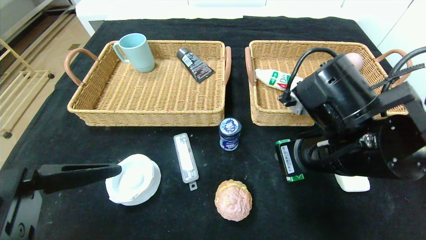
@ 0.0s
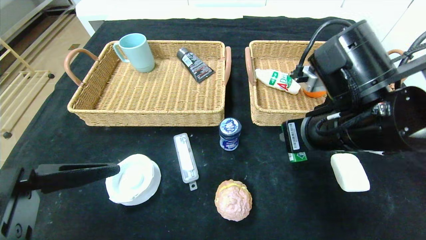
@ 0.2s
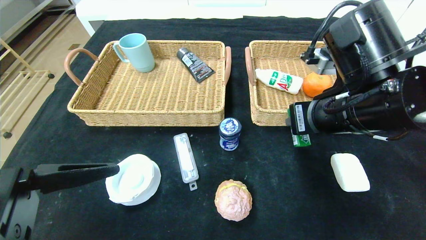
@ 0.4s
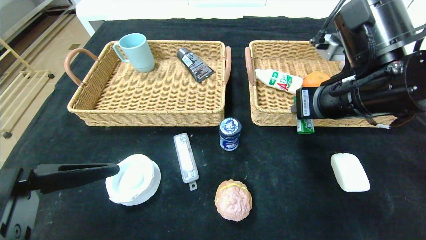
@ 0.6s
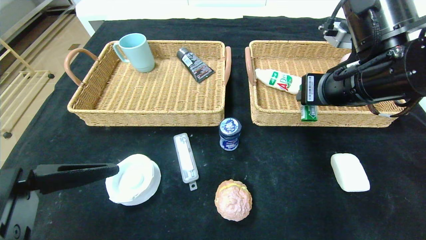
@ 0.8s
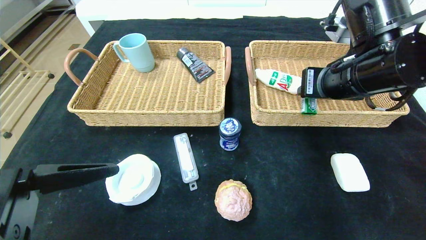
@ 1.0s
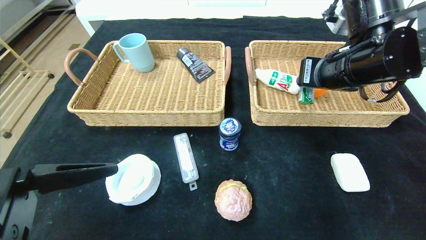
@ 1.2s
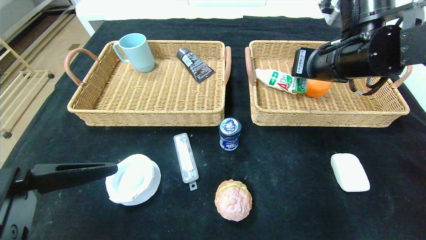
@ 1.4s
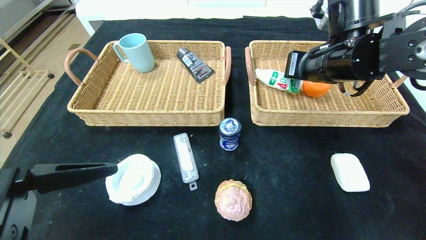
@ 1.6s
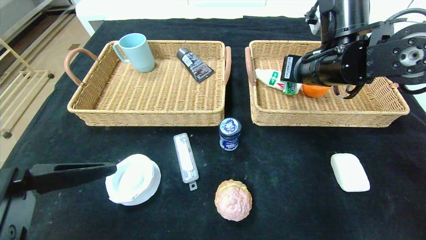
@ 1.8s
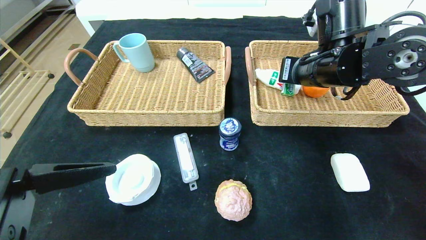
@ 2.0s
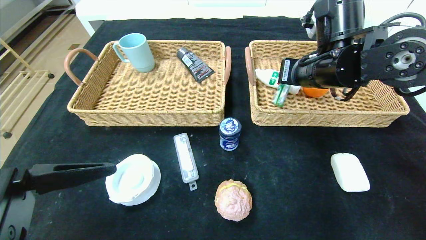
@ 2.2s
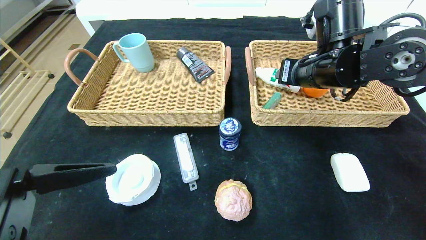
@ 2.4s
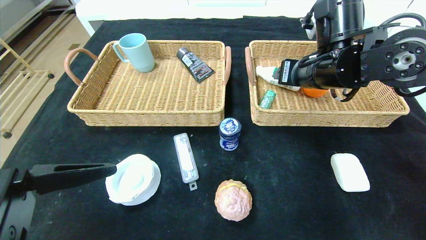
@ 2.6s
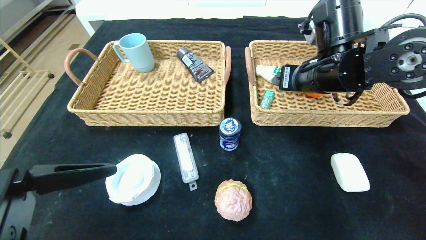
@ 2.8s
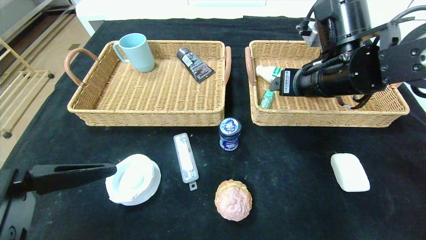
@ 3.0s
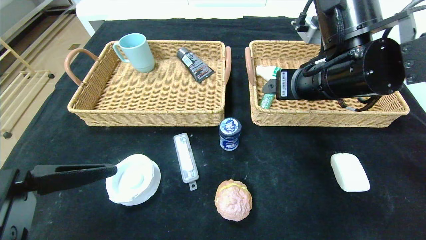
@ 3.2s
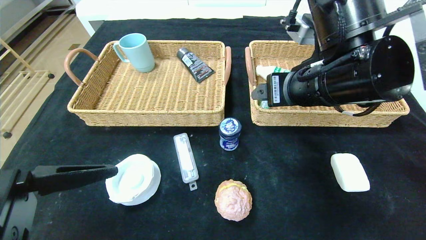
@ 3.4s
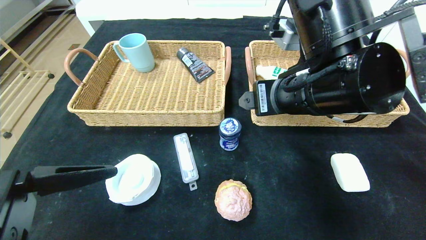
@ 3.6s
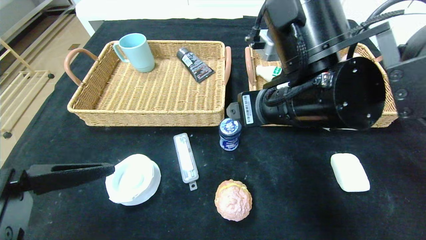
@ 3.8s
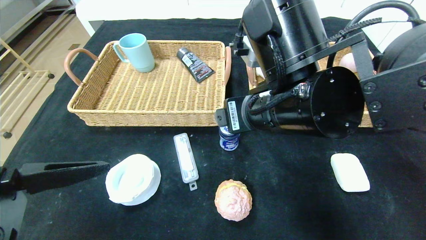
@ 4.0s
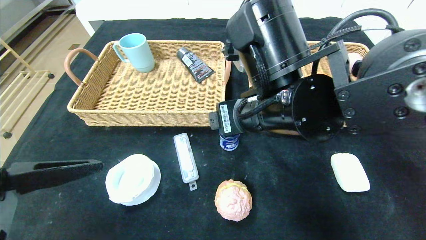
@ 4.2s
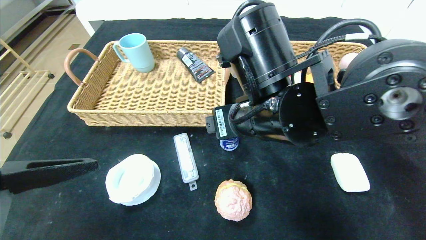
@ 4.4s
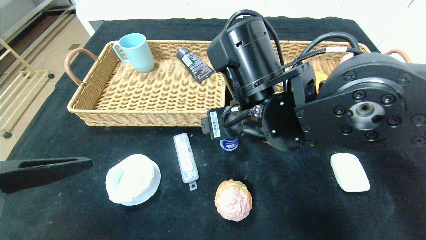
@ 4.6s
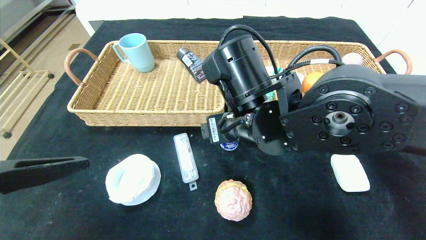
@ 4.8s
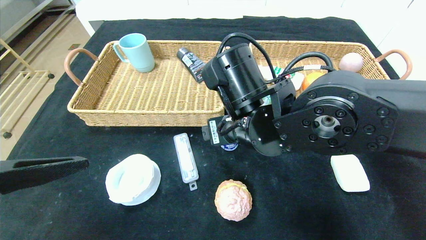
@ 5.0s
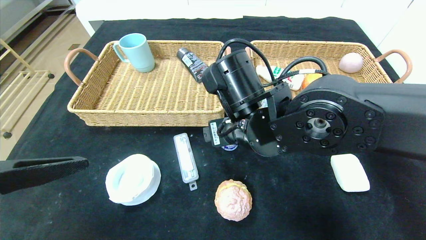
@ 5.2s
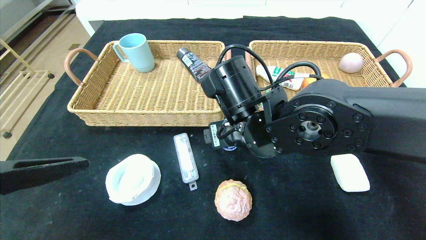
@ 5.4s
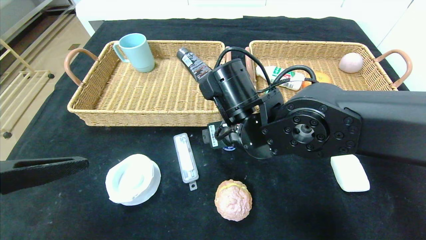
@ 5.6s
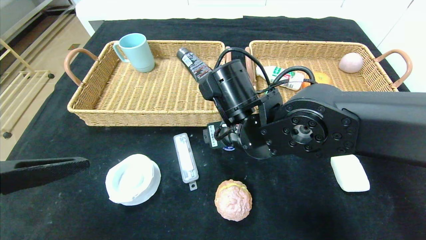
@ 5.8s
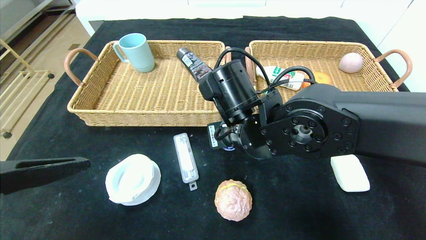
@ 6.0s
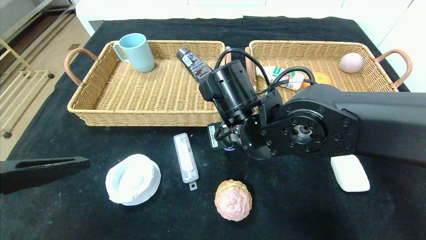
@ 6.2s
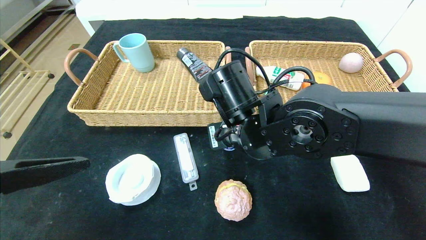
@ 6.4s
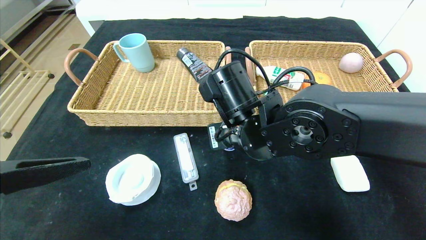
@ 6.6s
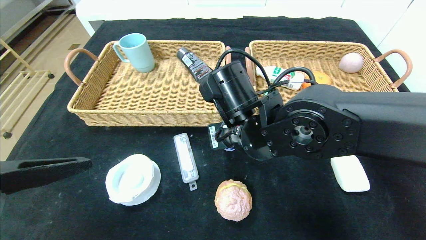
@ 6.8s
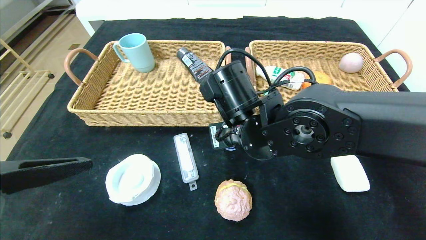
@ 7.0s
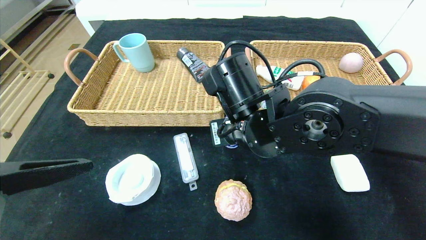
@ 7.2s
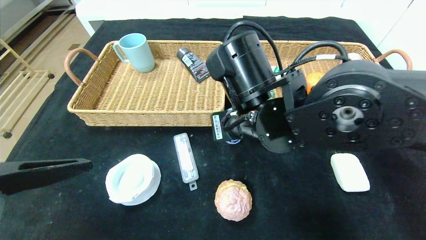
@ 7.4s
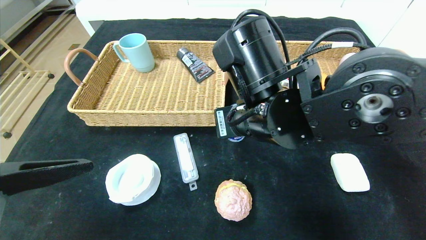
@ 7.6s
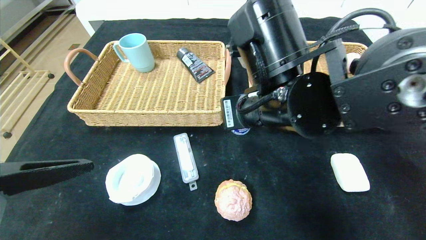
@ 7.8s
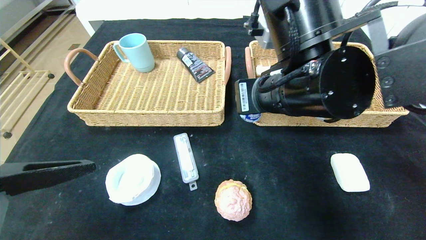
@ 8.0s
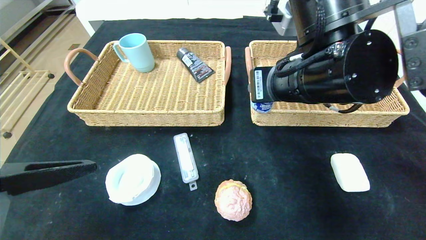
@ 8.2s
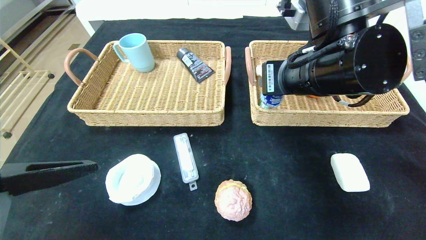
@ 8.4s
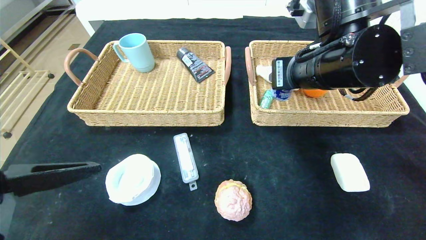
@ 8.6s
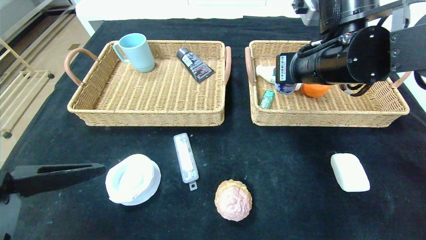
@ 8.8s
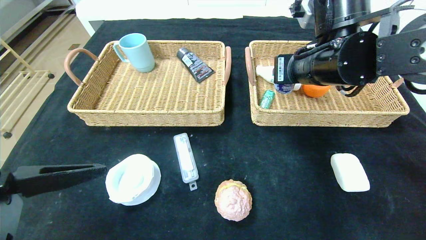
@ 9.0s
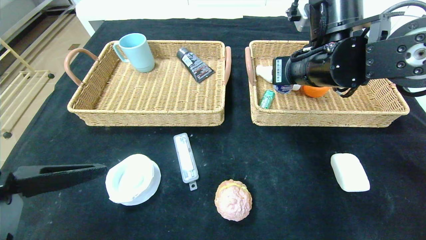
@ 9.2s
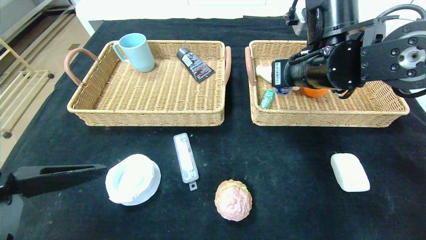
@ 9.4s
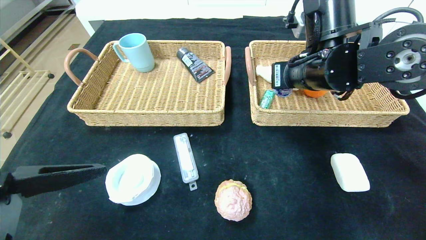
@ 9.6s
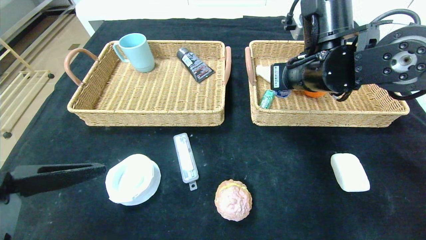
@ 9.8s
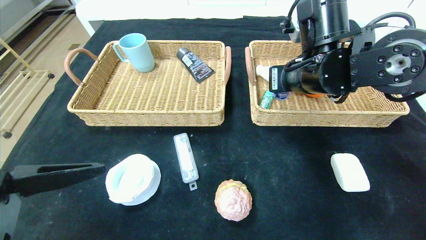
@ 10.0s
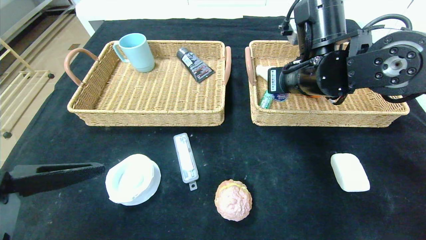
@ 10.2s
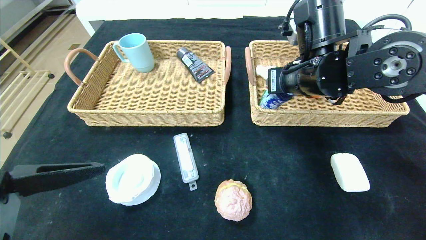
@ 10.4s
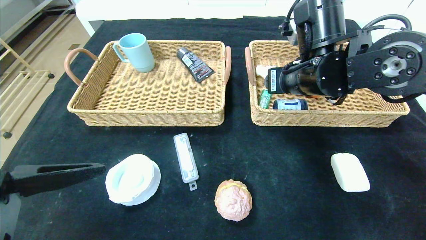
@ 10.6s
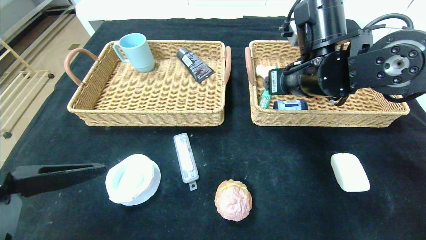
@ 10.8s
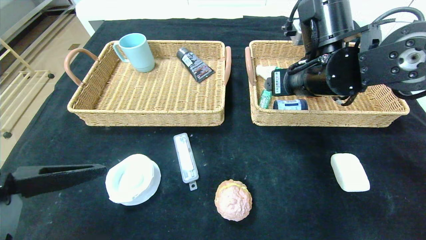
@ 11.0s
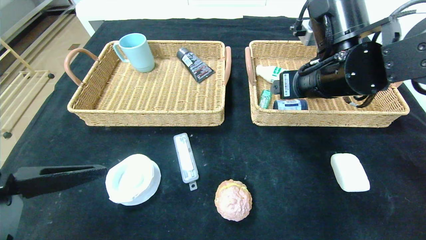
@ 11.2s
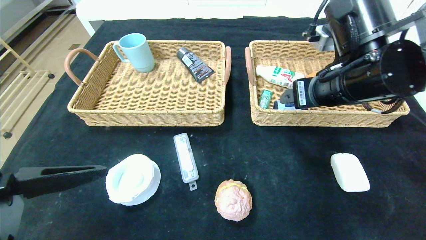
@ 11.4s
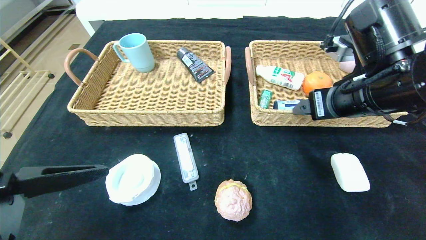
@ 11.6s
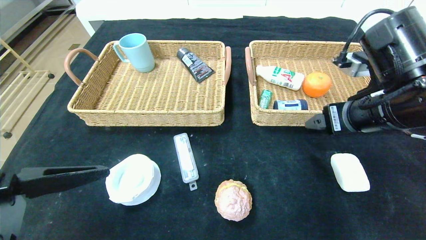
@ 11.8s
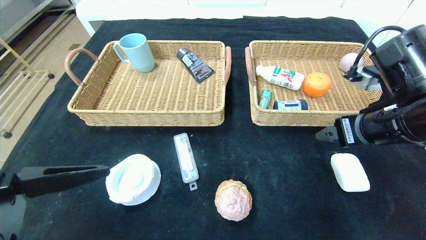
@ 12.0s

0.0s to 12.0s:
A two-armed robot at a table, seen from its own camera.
Step, 0.0s to 2.4s: Grasp the green chewing gum and put it in the right basket.
Step, 2.6s to 10.6s: Grasp the round chewing gum and put it in the right basket.
0.0s to 1.6s: The right gripper travels forward and upward by about 15 cm.
1.6s to 3.0s: The right gripper opens its fingers.
3.0s to 4.4s: The right gripper is displaced to the left and backward by approximately 15 cm.
4.4s to 6.0s: The right gripper moves about 5 cm, and closes.
6.0s to 7.6s: The right gripper shifts by approximately 5 cm.
7.6s to 9.0s: The right gripper is displaced to the right and forward by roughly 10 cm.
9.0s to 10.4s: The grippers make only small movements.
10.4s to 12.0s: The right gripper heads to the right and backward, covering approximately 15 cm, and opens up.

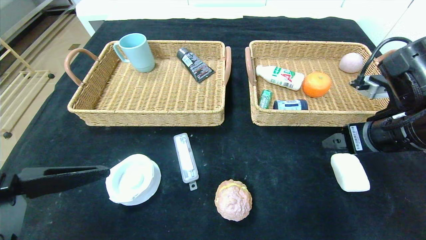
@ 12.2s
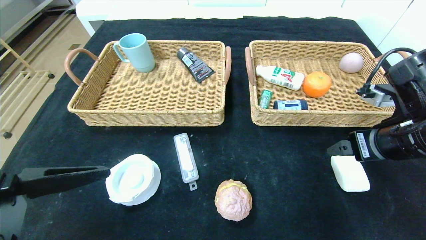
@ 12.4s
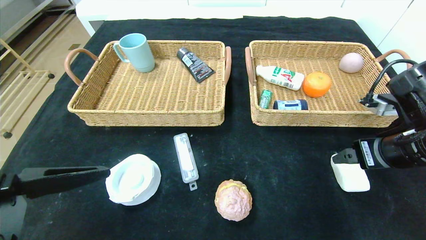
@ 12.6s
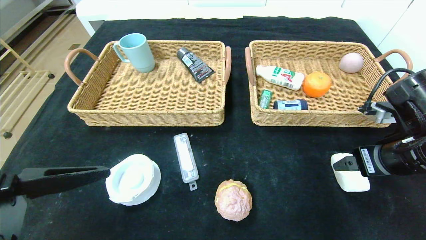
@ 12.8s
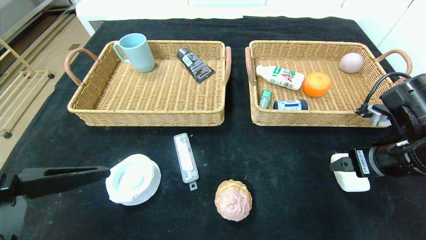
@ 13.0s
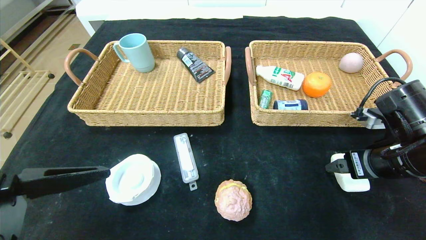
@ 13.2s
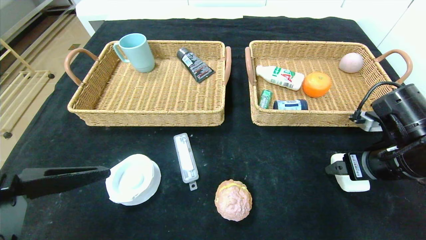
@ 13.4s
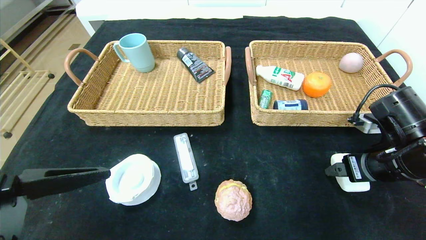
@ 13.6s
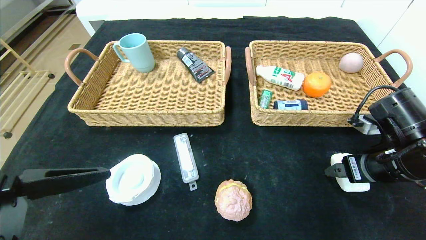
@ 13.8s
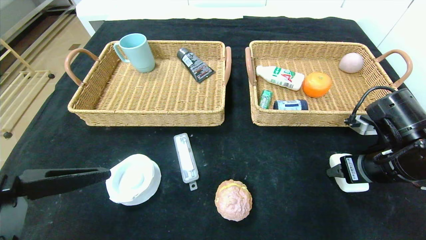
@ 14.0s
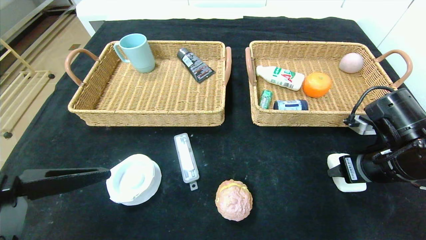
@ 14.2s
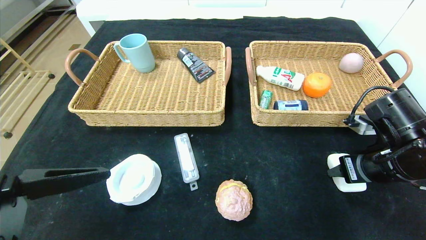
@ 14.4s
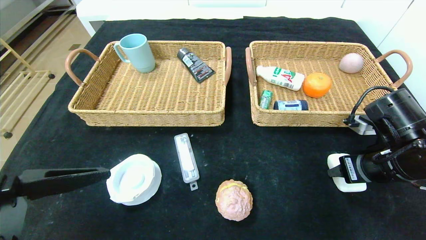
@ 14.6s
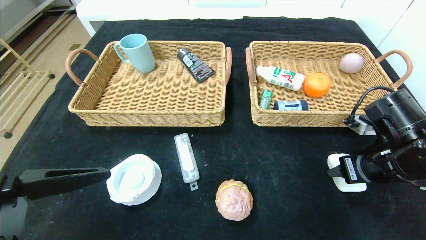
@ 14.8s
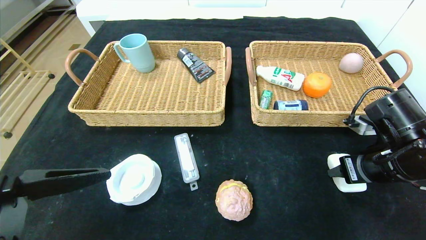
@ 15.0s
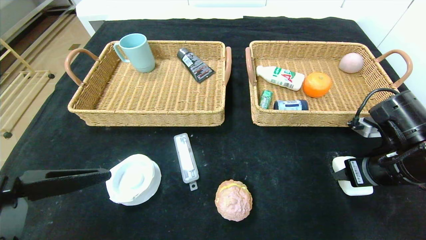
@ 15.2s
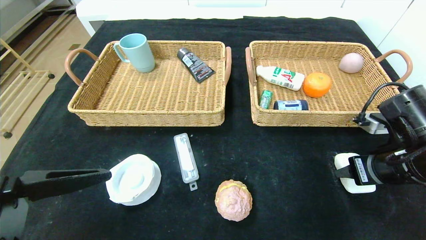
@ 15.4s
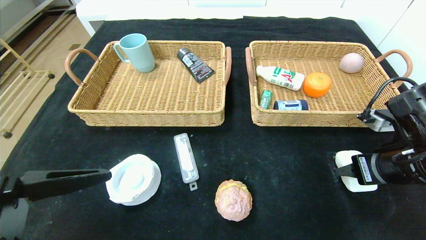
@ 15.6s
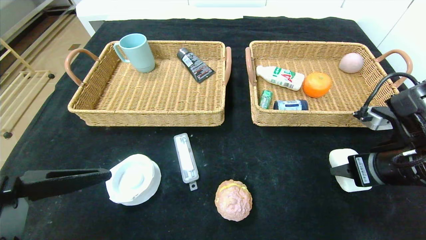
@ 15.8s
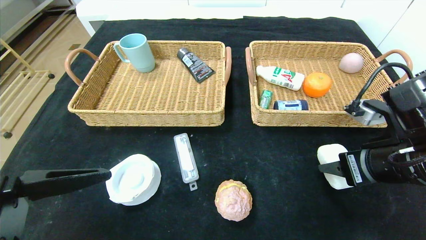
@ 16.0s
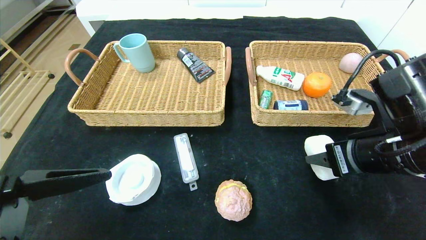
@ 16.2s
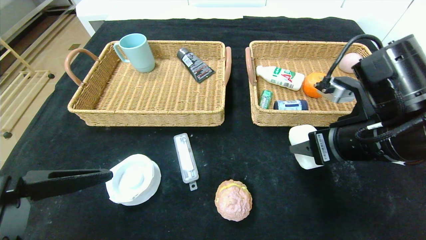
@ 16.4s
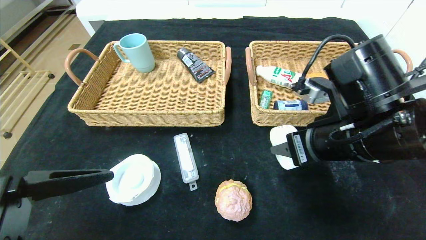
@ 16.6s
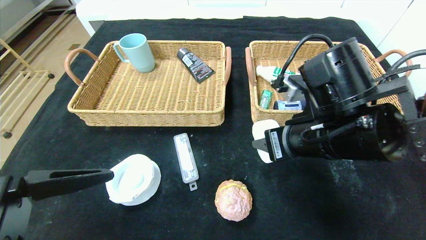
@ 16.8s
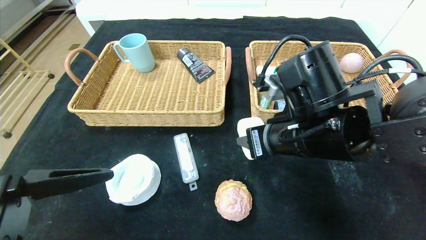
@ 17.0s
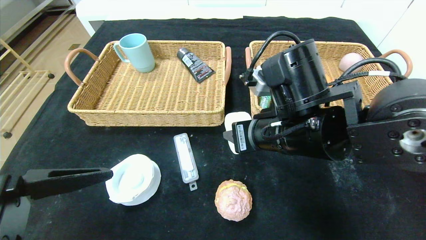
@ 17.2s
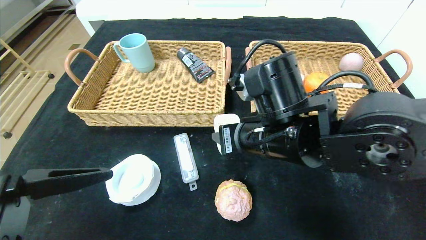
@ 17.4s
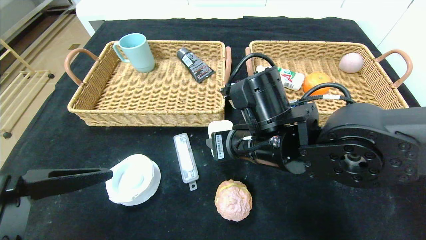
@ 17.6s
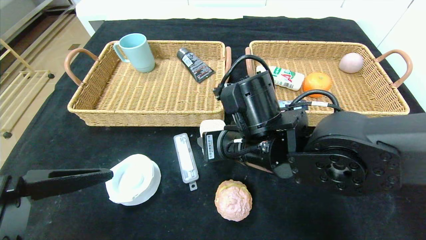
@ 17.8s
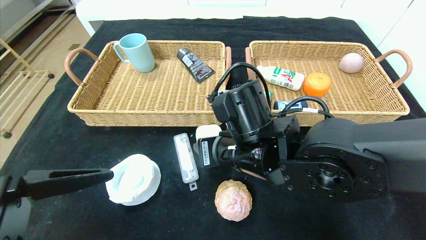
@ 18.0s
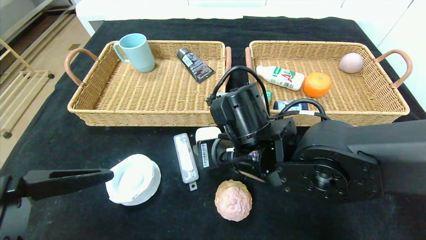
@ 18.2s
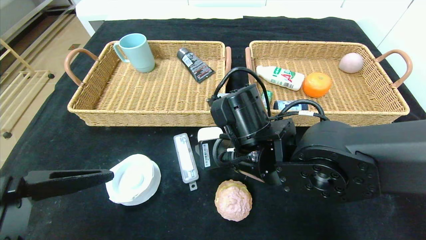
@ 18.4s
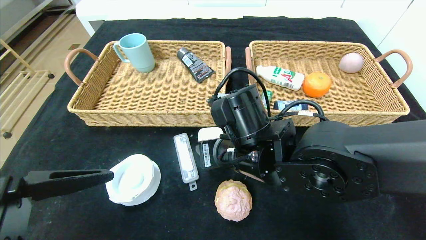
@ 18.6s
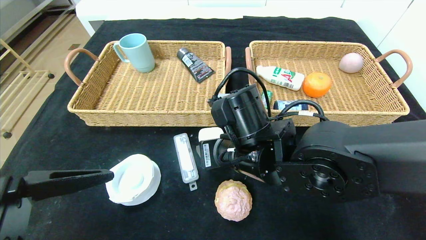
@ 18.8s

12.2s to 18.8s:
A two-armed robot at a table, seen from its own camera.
12.2s to 13.8s: The right gripper heads downward, covering roughly 5 cm.
13.8s to 15.4s: The right gripper closes its fingers.
15.4s to 17.2s: The right gripper heads to the left, covering about 20 cm.
17.2s to 18.8s: The right gripper moves to the left, about 5 cm.
